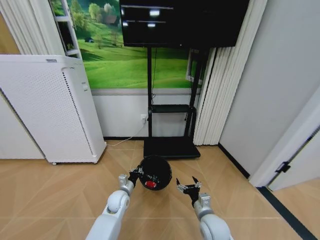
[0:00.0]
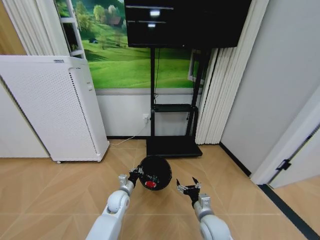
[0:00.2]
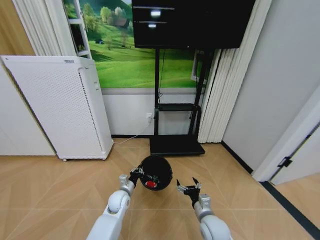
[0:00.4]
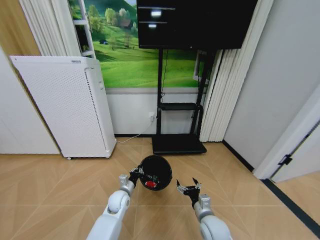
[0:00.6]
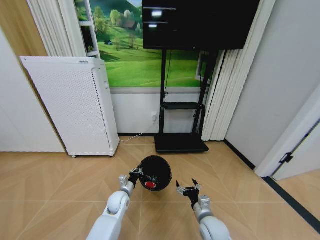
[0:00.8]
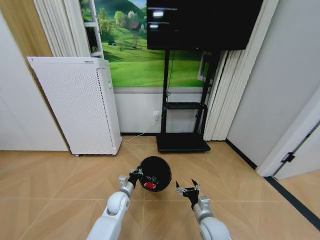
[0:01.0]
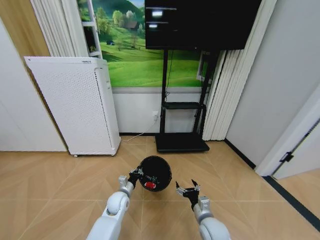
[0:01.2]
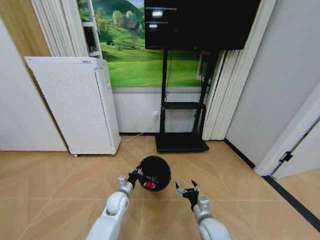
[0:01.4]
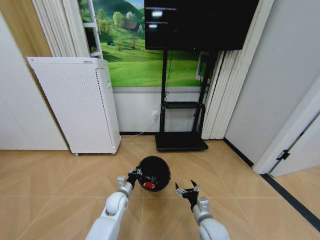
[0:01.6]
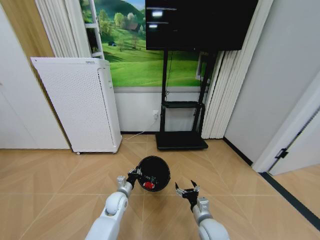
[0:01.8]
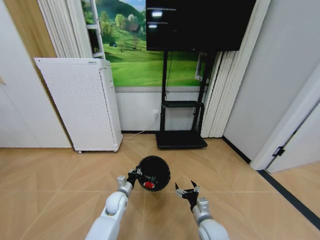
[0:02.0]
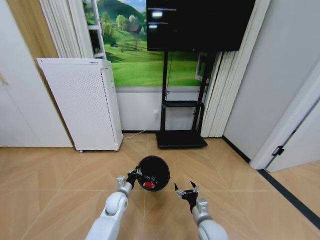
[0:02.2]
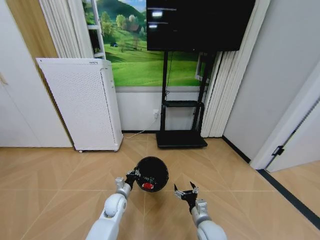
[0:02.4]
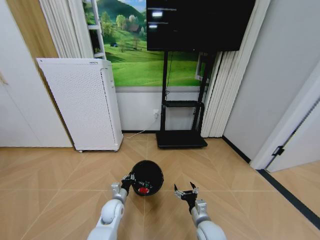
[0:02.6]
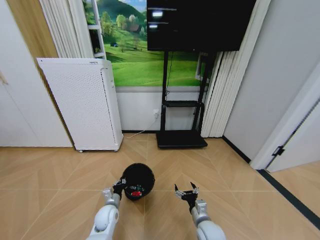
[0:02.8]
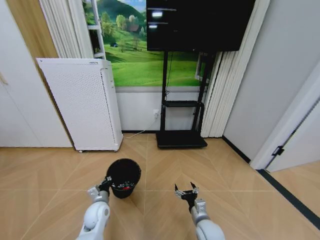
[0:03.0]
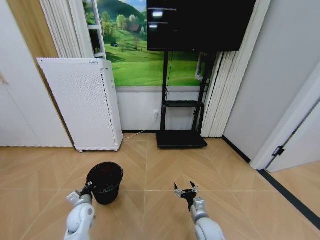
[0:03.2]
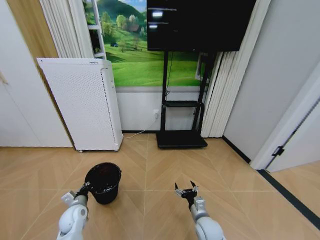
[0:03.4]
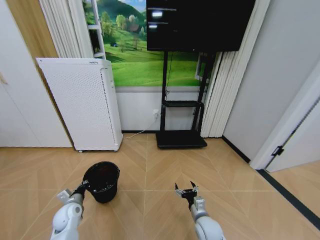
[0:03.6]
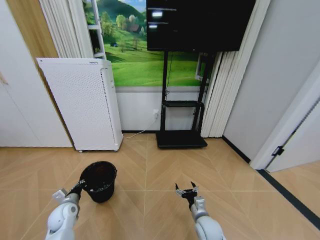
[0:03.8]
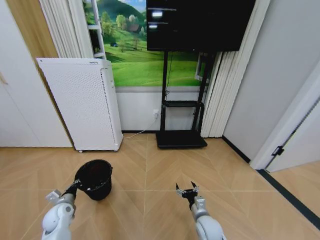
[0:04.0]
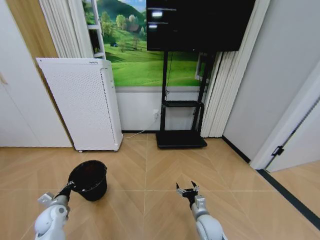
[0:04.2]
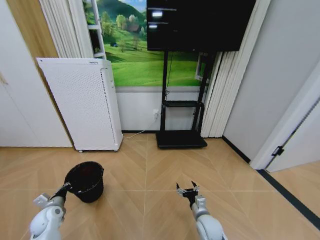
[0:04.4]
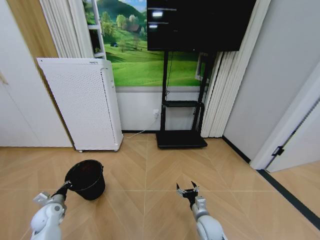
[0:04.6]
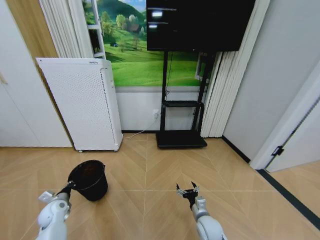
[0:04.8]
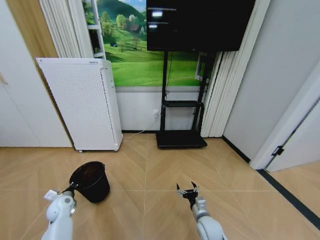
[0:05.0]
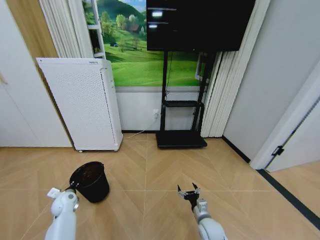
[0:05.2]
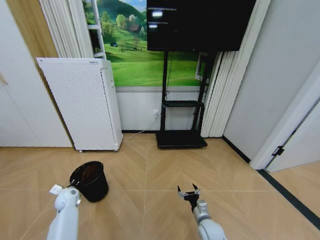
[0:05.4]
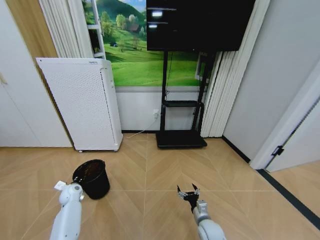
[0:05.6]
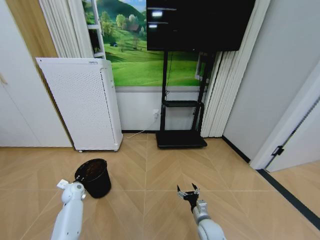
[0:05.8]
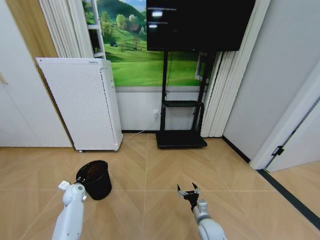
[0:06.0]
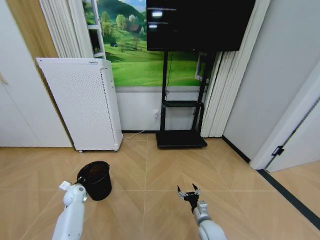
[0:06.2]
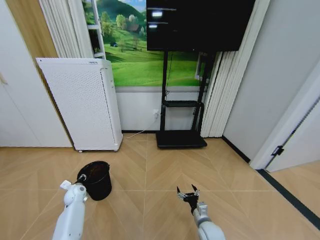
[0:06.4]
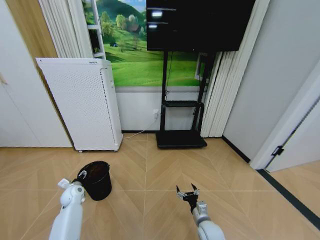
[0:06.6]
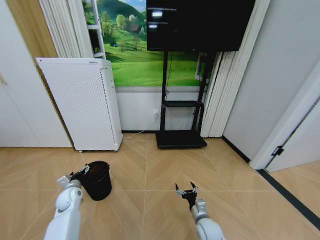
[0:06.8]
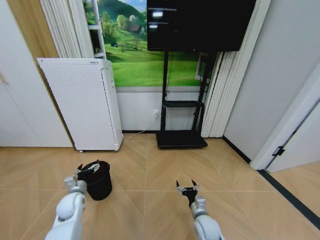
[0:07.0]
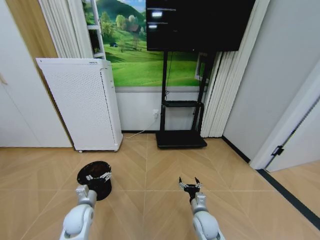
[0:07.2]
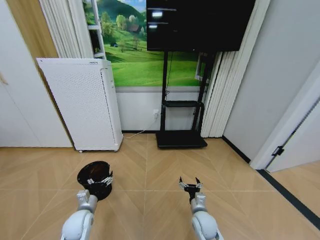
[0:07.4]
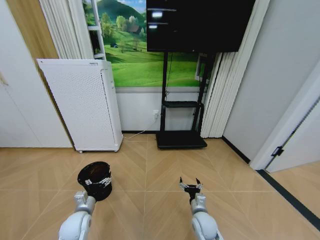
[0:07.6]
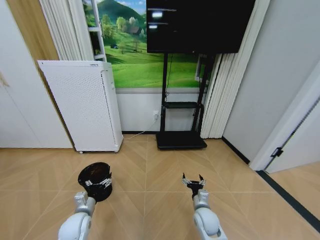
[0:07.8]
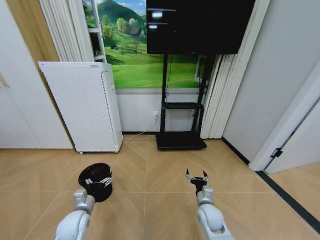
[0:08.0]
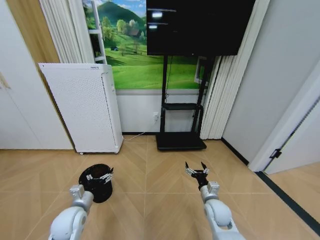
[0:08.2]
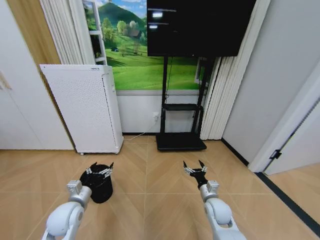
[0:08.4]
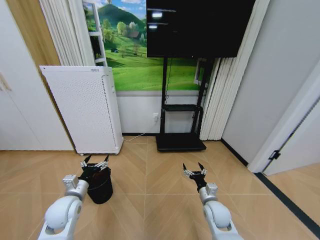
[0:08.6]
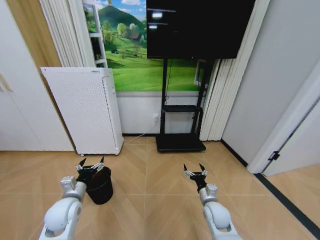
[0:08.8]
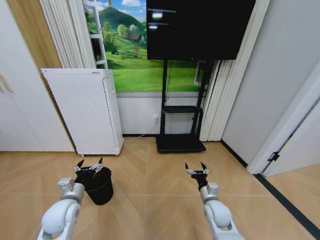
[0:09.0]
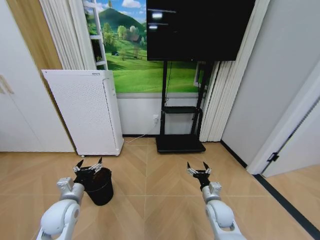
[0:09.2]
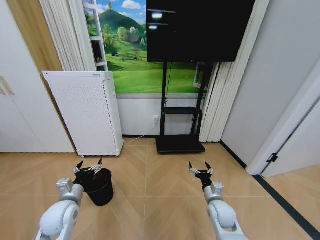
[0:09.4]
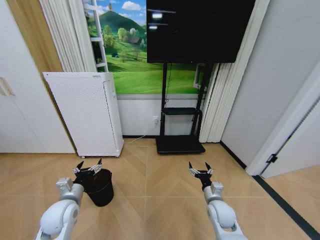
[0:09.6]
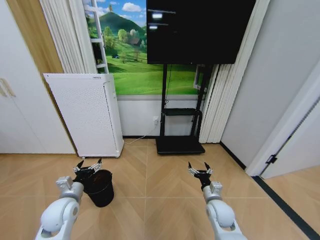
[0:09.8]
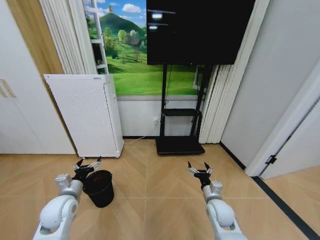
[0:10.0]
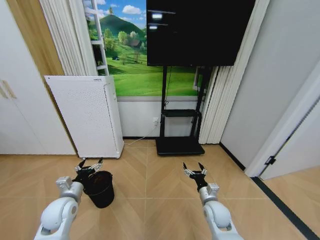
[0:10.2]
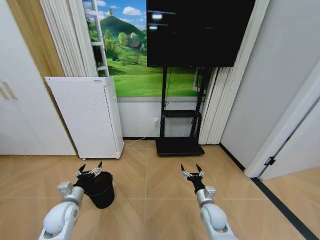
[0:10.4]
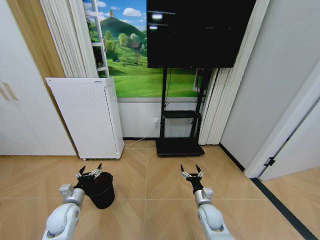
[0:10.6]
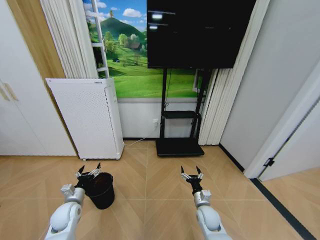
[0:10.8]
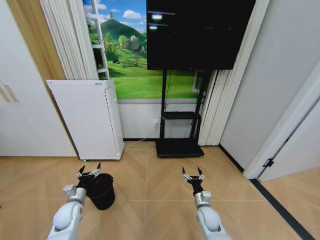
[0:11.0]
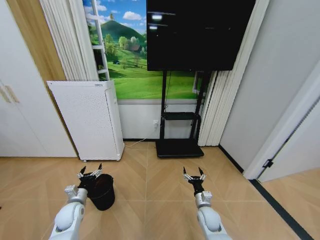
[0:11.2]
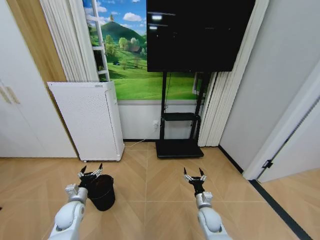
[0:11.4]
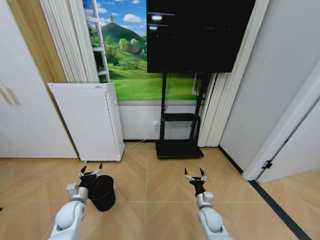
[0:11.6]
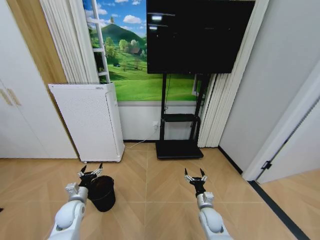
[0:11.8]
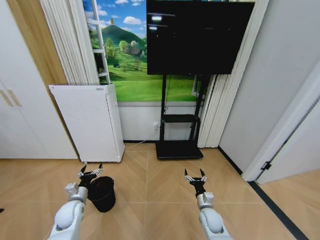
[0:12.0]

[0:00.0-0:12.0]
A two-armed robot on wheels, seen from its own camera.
Task of the whole recording: Pick up the trash bin and place the garbage on the floor into it.
0:01.6 to 0:03.0: The left gripper heads to the left, covering approximately 5 cm.
0:03.0 to 0:04.4: The left gripper shifts roughly 20 cm to the left.
0:04.4 to 0:06.0: The left gripper goes roughly 10 cm forward.
0:06.0 to 0:07.6: The left gripper is displaced backward and to the right by some 20 cm, and opens.
0:07.6 to 0:09.0: The left gripper is displaced upward by approximately 10 cm, while the right gripper shifts approximately 5 cm to the right.
0:09.0 to 0:10.4: The grippers stay close to where they were, moving slightly.
0:10.4 to 0:12.0: The two grippers go approximately 5 cm downward.

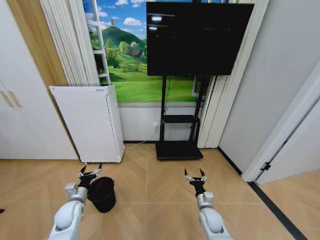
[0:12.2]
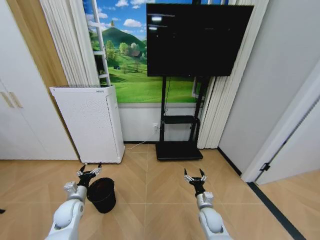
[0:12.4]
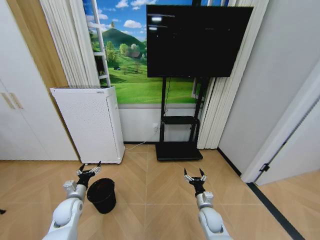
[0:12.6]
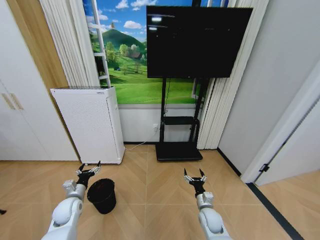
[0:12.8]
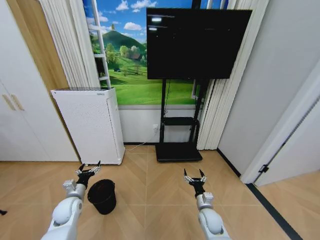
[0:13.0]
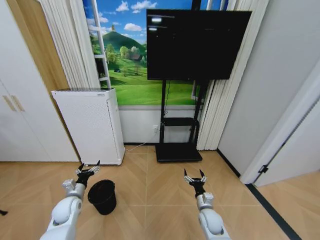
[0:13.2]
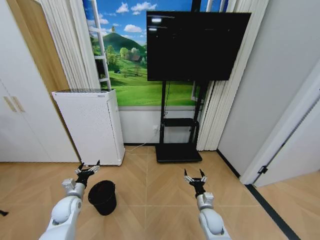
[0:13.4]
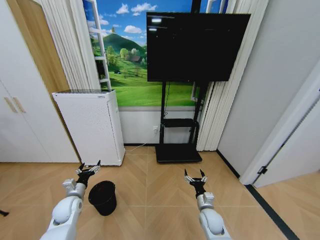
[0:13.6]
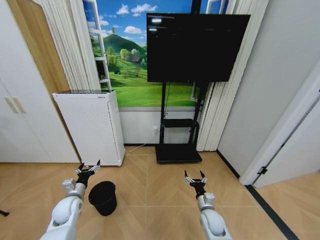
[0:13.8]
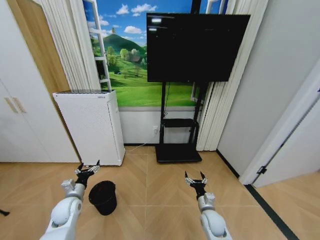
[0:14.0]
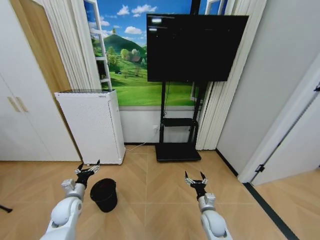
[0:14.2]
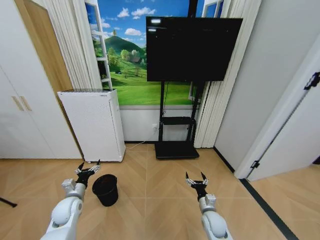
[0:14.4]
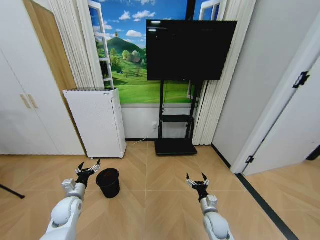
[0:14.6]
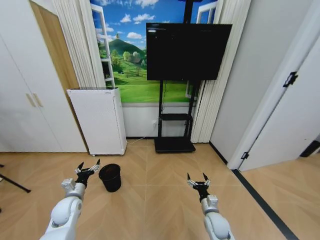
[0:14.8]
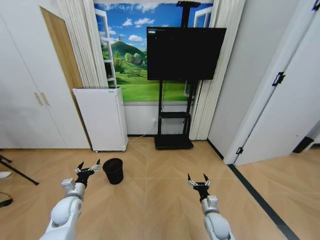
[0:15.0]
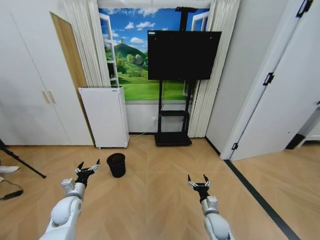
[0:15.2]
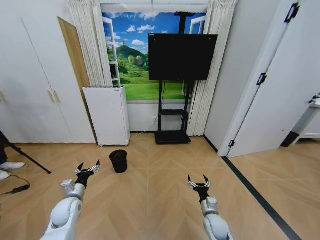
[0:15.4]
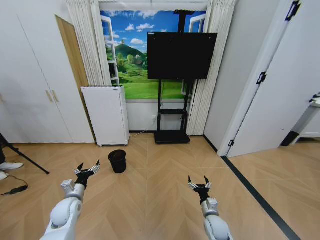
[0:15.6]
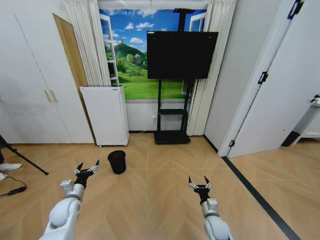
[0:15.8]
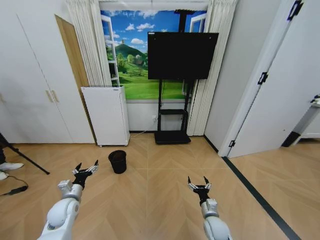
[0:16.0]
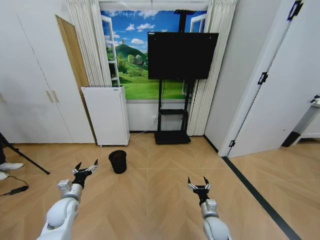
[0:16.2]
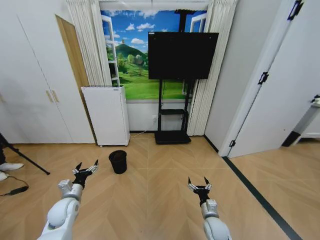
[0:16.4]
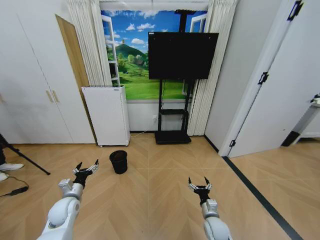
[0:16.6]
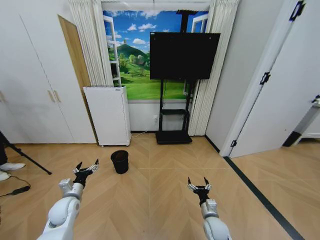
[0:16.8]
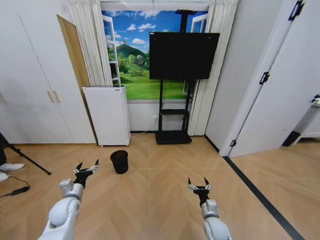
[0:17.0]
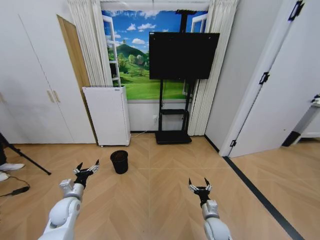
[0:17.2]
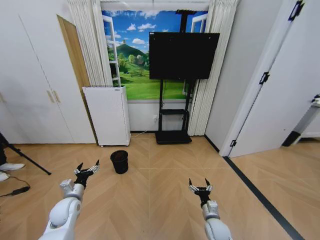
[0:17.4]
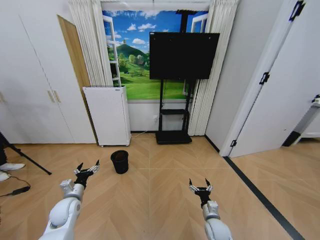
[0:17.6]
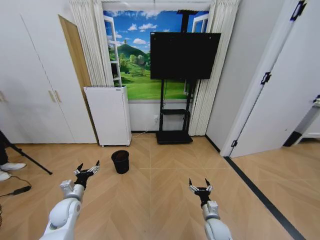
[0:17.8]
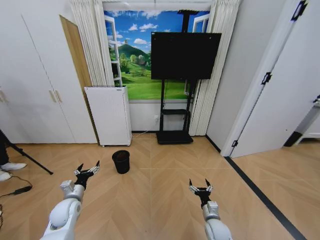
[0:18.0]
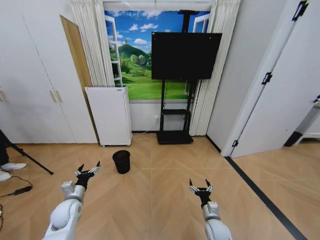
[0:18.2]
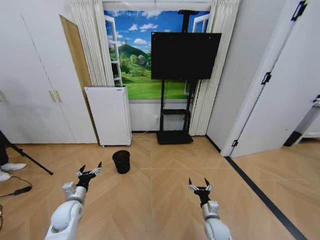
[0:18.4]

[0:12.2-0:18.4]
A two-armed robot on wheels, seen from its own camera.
Task of the whole recording: Pick up the trash bin and place the garbage on the floor into it.
0:12.2 to 0:13.8: The grippers move only a little.
0:15.4 to 0:18.4: The grippers make only small movements.
